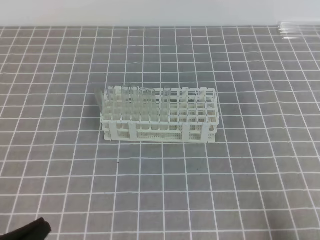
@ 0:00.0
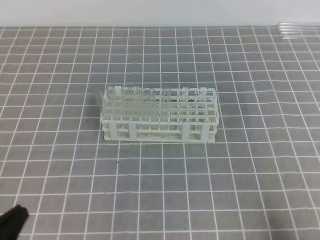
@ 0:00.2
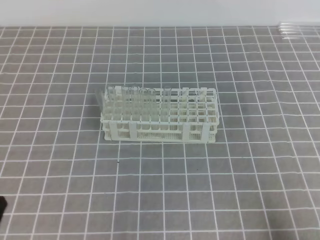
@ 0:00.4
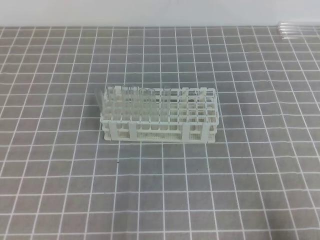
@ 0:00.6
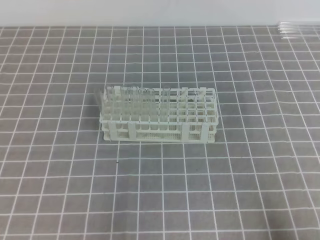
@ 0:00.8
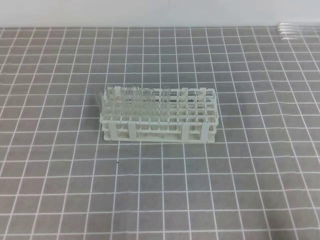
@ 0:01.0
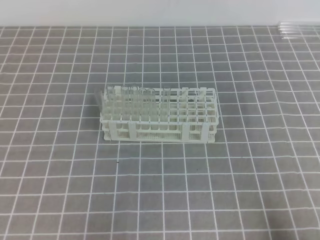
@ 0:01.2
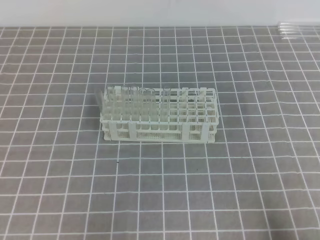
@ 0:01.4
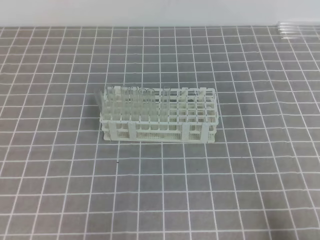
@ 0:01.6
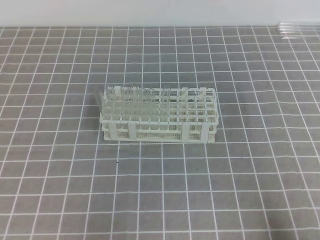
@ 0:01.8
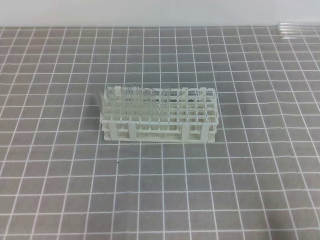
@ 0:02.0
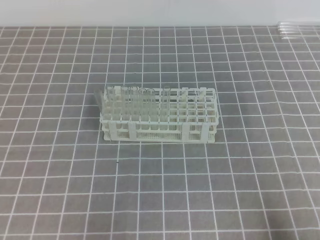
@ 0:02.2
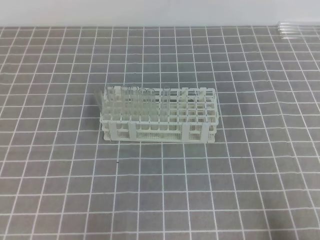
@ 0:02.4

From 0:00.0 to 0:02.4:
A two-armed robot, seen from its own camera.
From 0:01.2 to 0:02.4: The two grippers keep their place.
